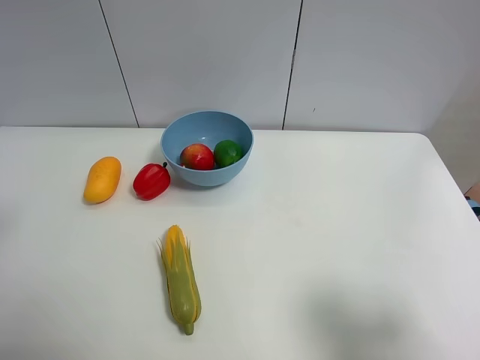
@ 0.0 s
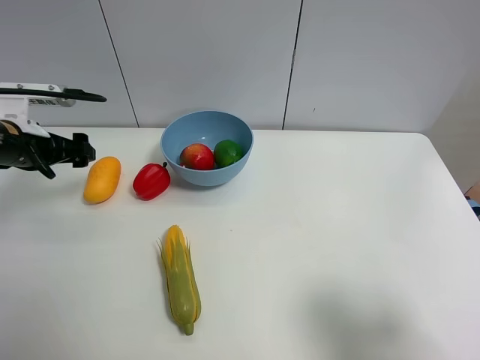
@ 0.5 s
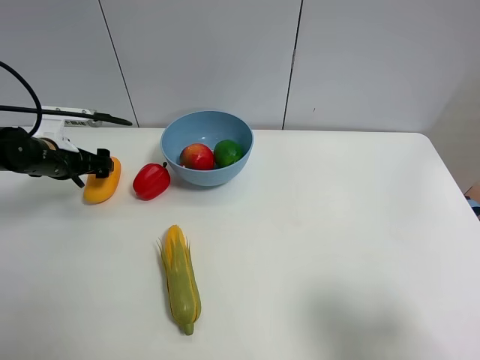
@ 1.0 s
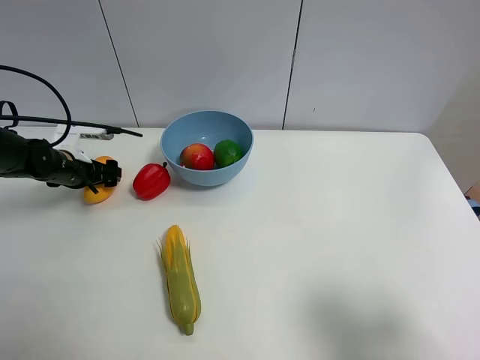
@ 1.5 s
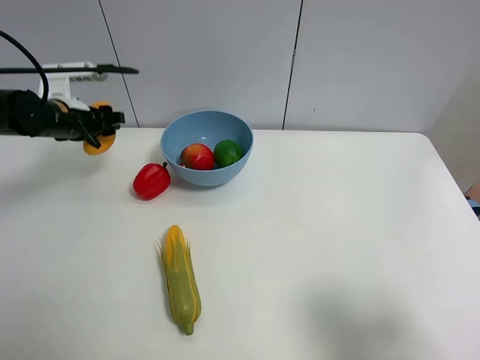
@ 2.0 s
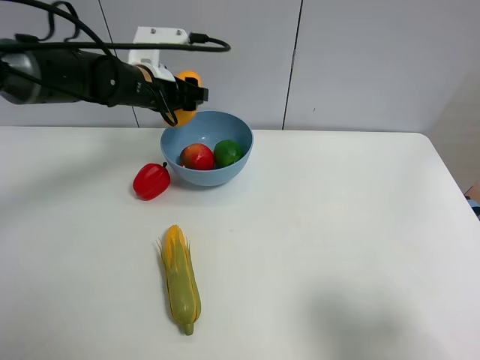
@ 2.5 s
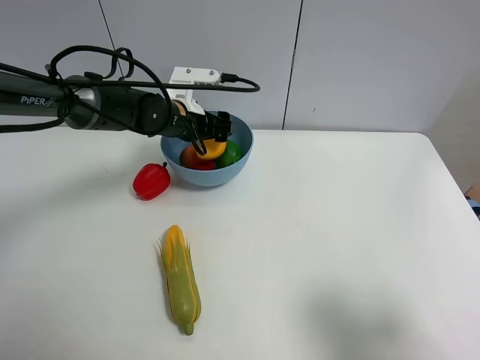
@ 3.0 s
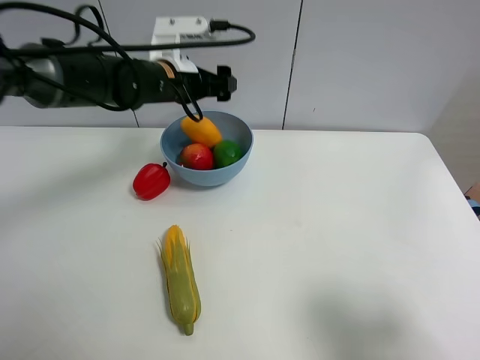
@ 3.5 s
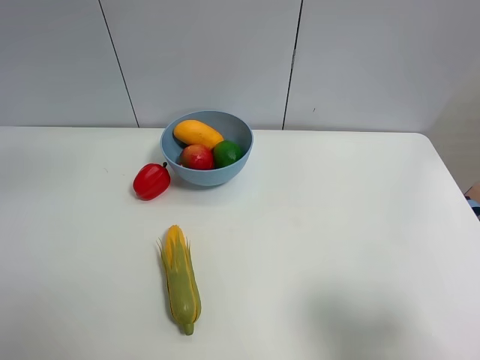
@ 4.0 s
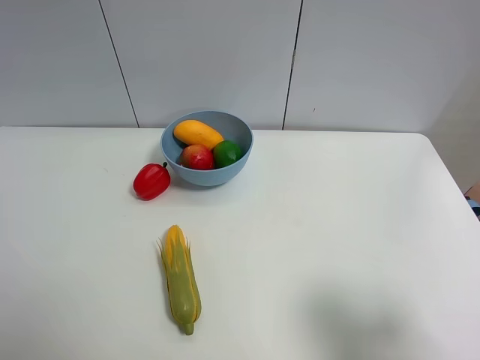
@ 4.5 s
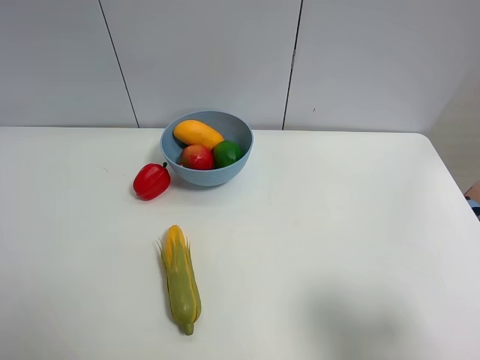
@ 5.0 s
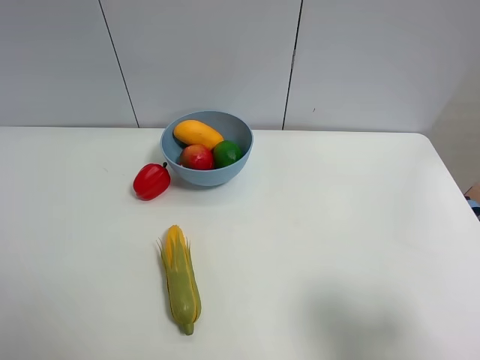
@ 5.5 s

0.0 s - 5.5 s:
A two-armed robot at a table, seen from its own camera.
Task of the whole recording: Put the three fruits on the table into a bowl.
Step, 2.0 s - 3.0 s: Place the mango in the blue bowl with left gripper.
0.0 s - 2.0 s: The left gripper shifts some 25 cm forward and downward, and closes.
2.0 s - 3.5 s: The left gripper moves to the right and upward, roughly 20 cm, and opens up.
3.5 s - 5.5 s: The left gripper heads backward and to the left, covering some 40 cm.
